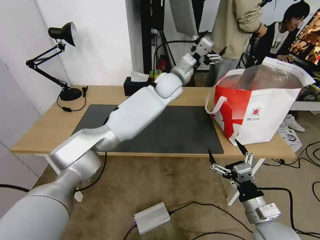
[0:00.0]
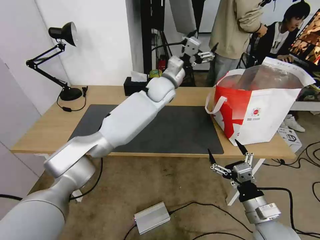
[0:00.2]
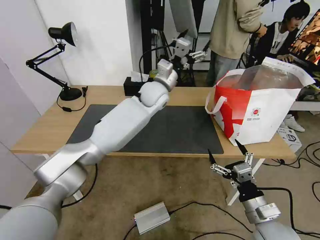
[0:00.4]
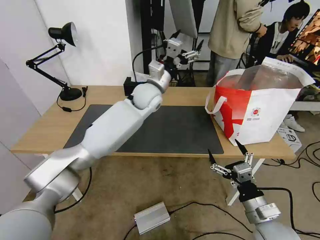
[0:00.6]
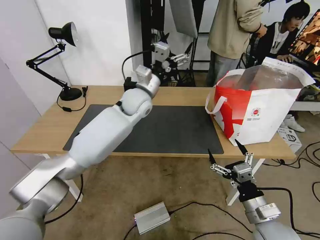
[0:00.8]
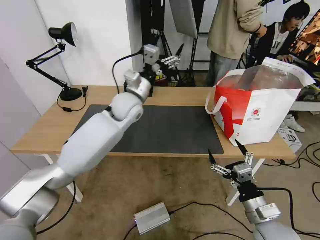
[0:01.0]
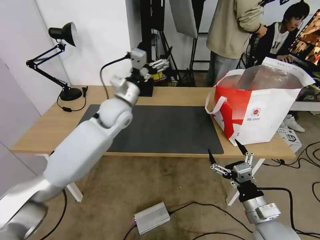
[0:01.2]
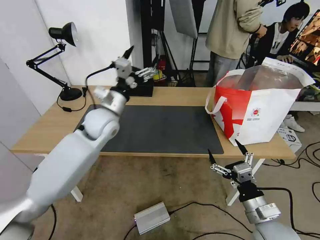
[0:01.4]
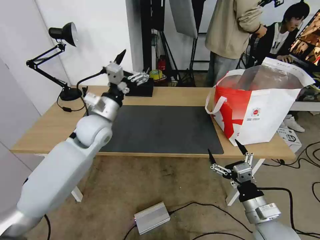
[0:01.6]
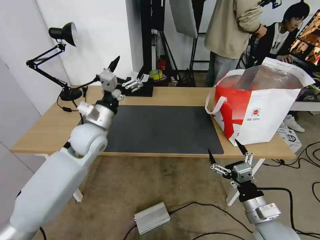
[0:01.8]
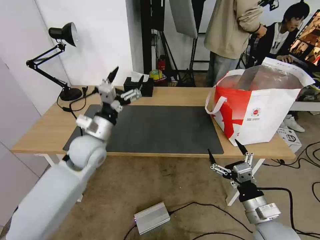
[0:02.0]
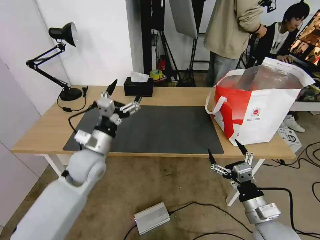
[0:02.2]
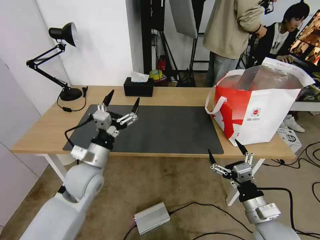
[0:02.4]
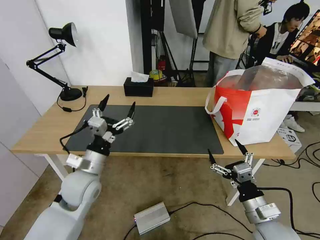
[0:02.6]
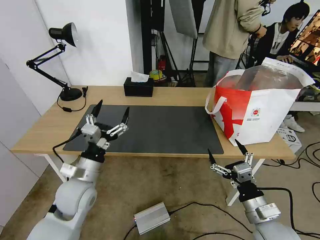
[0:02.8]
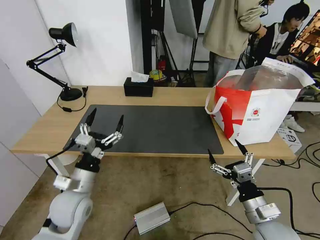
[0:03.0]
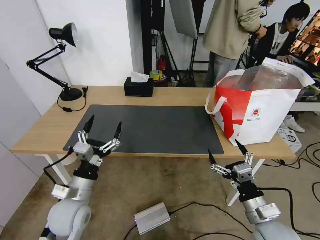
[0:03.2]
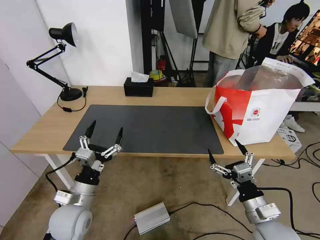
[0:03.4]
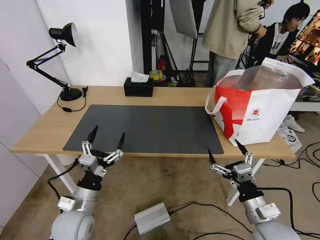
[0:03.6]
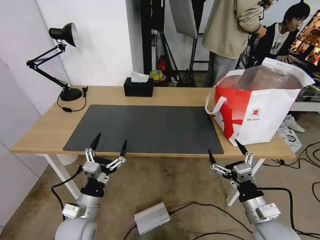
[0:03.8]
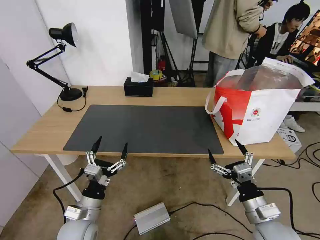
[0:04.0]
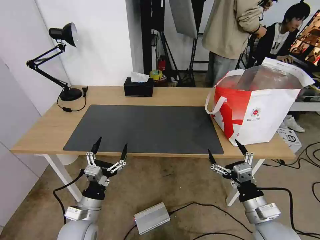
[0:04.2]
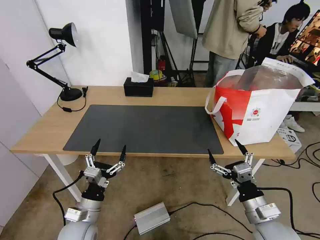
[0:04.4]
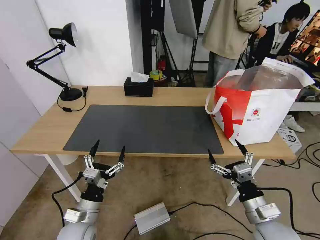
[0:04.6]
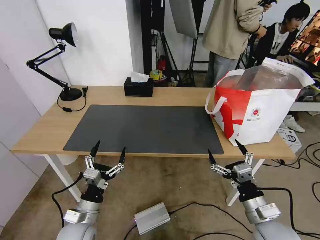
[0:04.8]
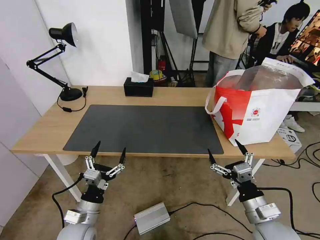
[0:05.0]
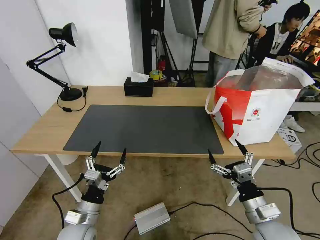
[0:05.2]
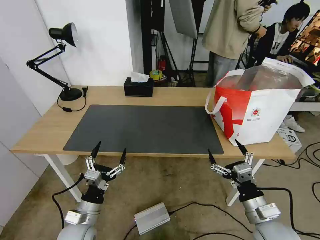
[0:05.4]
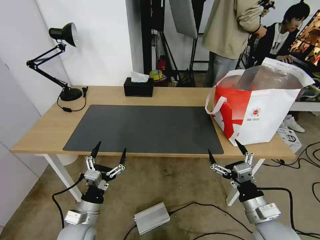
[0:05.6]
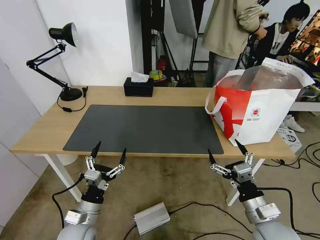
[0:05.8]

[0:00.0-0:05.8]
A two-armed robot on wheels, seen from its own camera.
Task of the whole recording: Pick up the trash from the table and place it into the takeout bag.
0:00.0 to 0:01.4: The left gripper heads to the left and backward, covering approximately 25 cm.
0:01.4 to 0:02.8: The left gripper is displaced backward and downward by approximately 20 cm.
0:02.8 to 0:04.4: The left gripper shifts about 15 cm downward and backward.
0:04.4 to 0:05.8: The two grippers keep their place.
